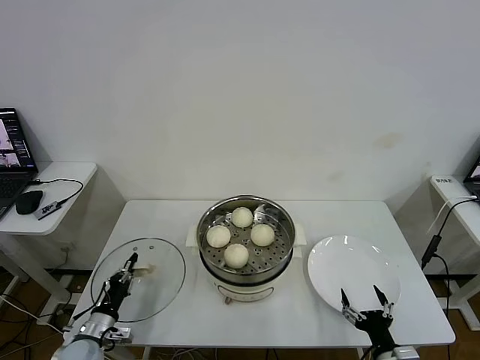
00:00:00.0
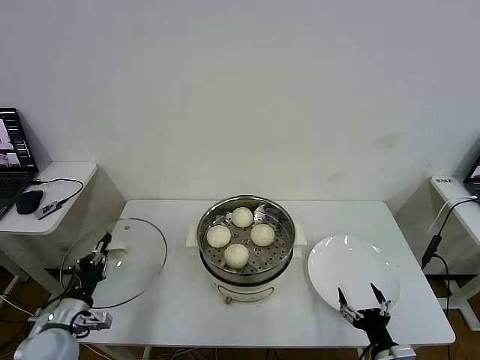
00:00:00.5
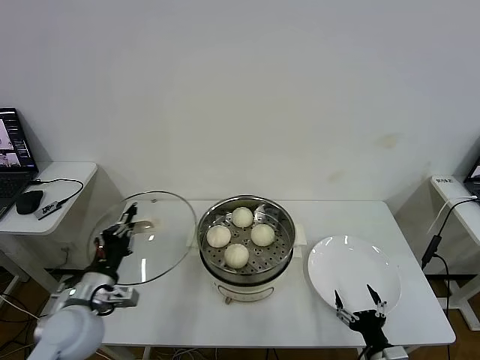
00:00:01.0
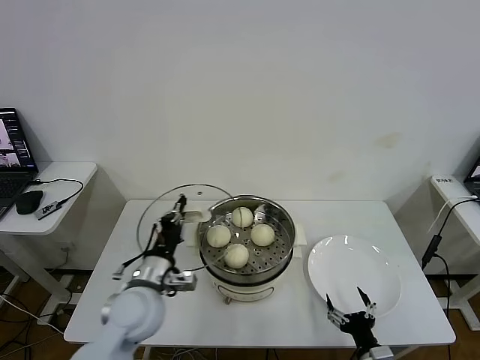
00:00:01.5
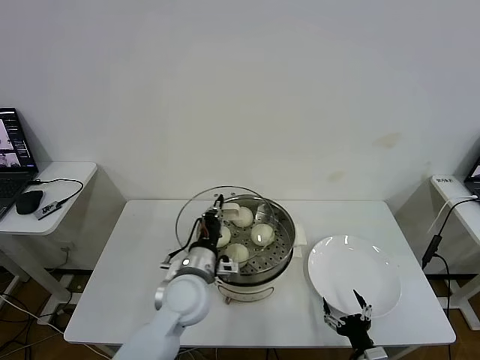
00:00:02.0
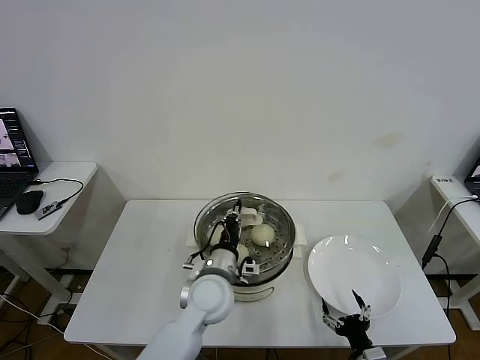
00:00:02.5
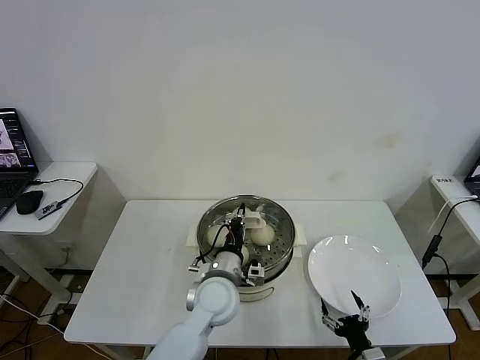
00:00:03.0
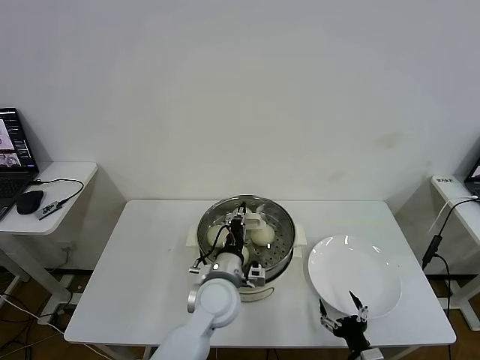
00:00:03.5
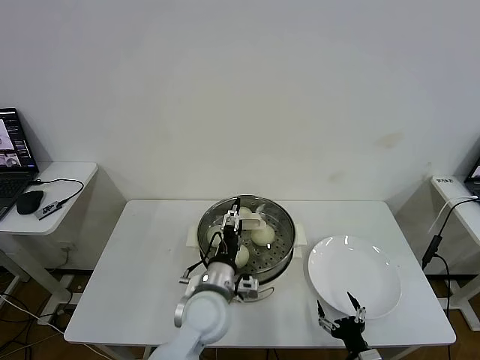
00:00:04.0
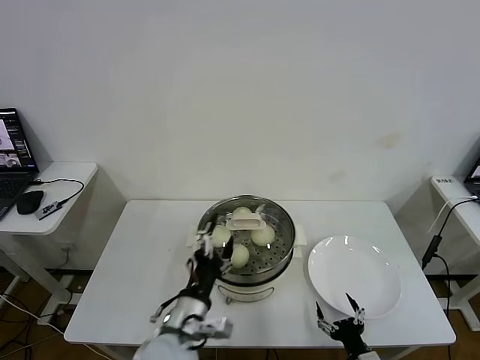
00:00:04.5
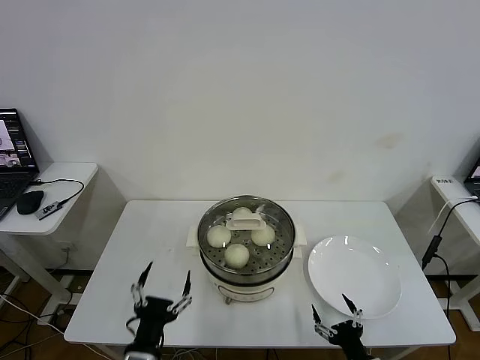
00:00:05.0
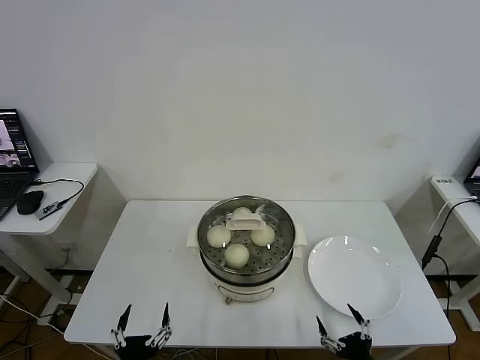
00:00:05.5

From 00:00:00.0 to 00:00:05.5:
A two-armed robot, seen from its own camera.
Task of the whole recording: take steamed baozi put them in steamer then cover it.
Step, from 00:00:00.0 to 00:00:03.5: Place the pot lid on the steamer with left gripper.
From 00:00:00.0 to 00:00:02.0: The left gripper is displaced to the right and upward by about 30 cm.
From 00:00:02.0 to 00:00:03.5: The left gripper shifts some 5 cm to the right.
From 00:00:03.5 to 00:00:05.5: The right gripper shifts by roughly 5 cm. The left gripper goes some 30 cm backward and to the left, and opens its fingers.
